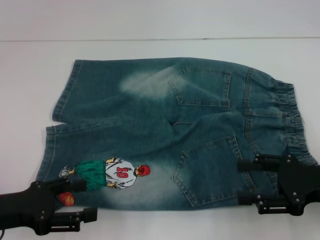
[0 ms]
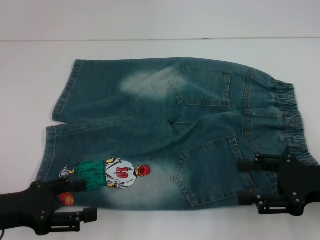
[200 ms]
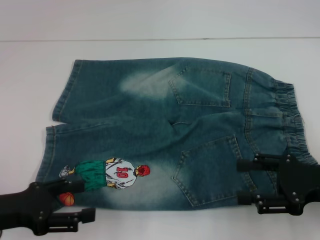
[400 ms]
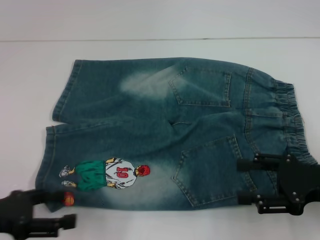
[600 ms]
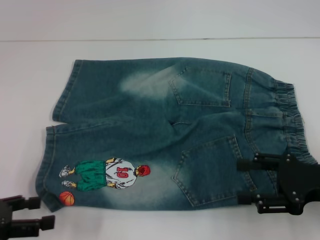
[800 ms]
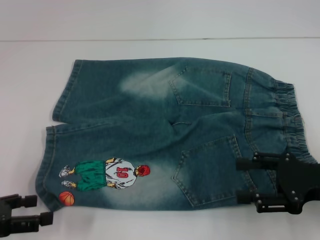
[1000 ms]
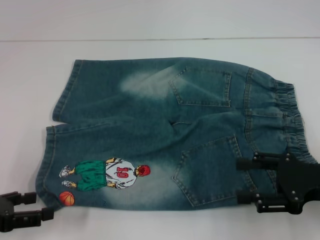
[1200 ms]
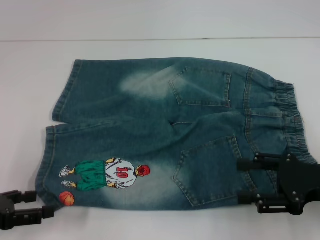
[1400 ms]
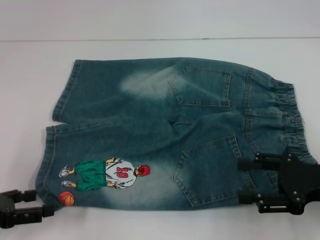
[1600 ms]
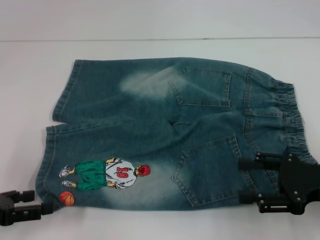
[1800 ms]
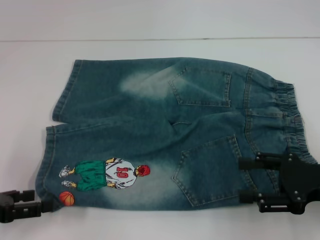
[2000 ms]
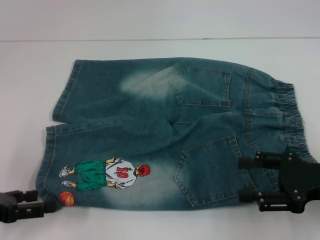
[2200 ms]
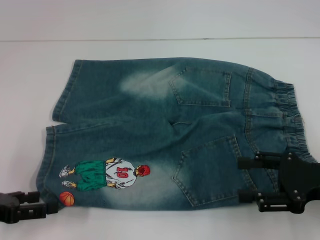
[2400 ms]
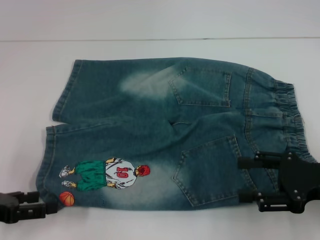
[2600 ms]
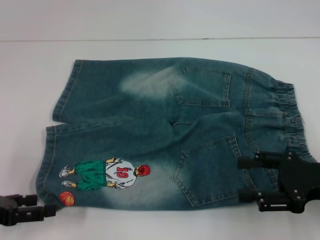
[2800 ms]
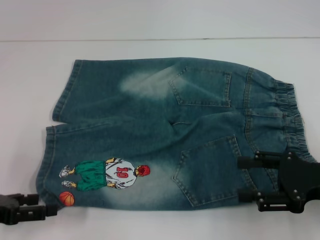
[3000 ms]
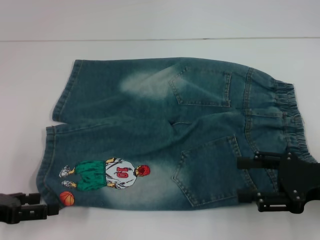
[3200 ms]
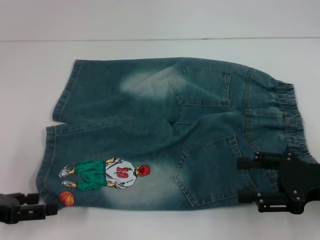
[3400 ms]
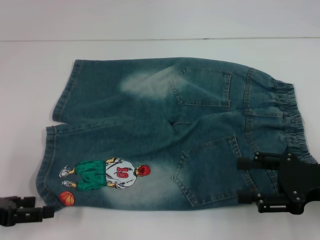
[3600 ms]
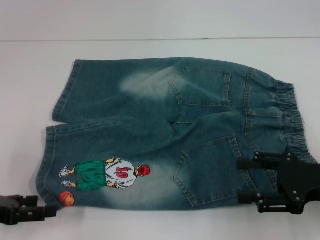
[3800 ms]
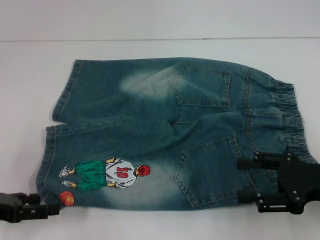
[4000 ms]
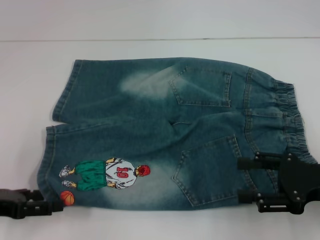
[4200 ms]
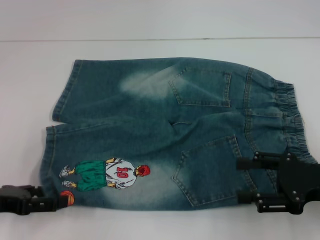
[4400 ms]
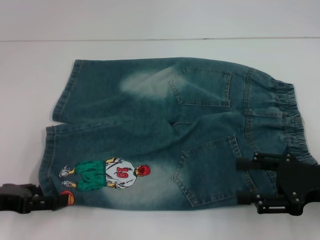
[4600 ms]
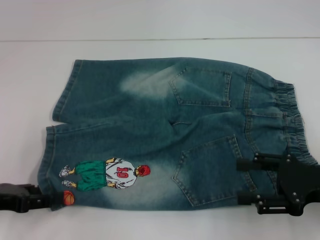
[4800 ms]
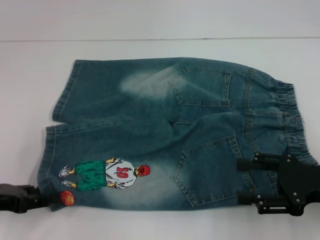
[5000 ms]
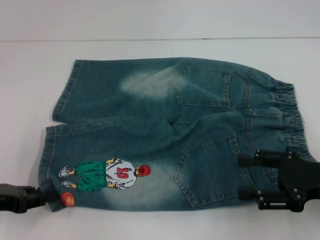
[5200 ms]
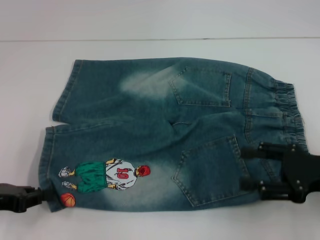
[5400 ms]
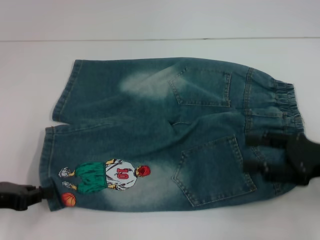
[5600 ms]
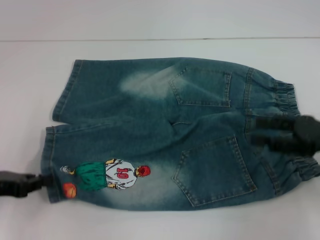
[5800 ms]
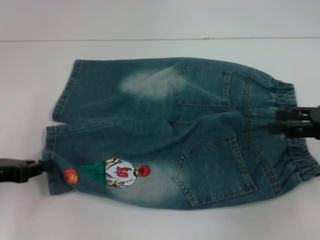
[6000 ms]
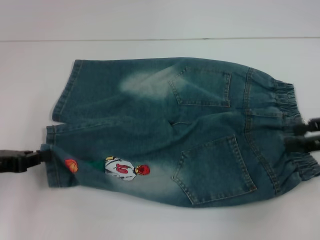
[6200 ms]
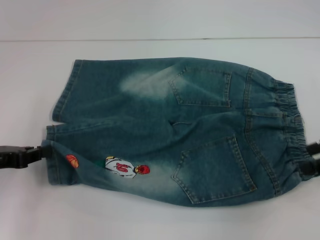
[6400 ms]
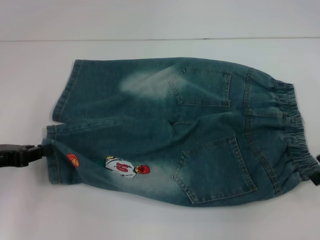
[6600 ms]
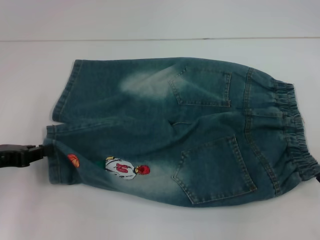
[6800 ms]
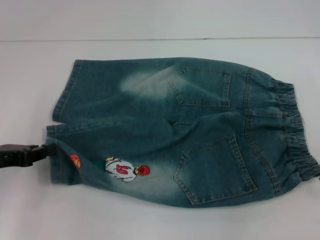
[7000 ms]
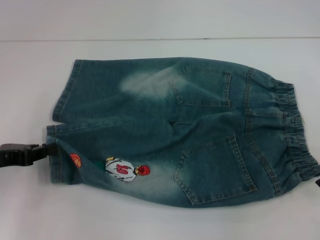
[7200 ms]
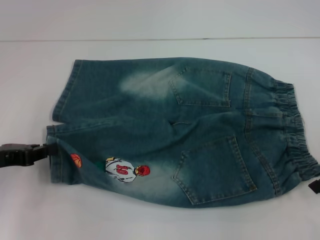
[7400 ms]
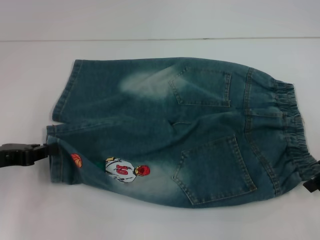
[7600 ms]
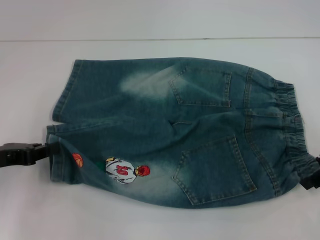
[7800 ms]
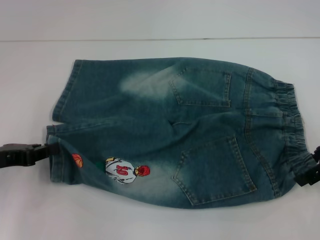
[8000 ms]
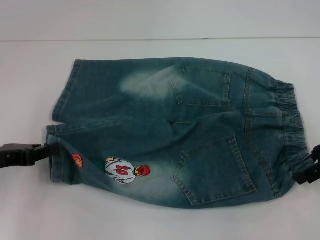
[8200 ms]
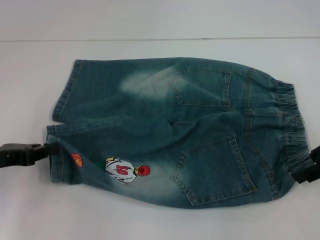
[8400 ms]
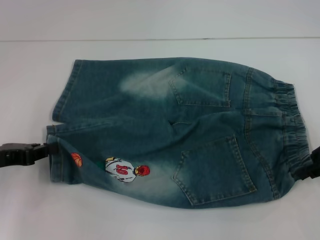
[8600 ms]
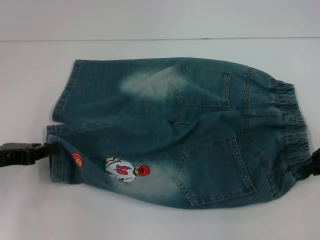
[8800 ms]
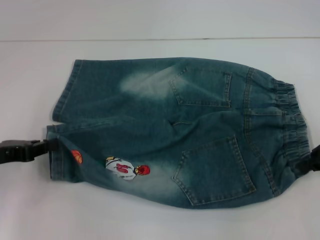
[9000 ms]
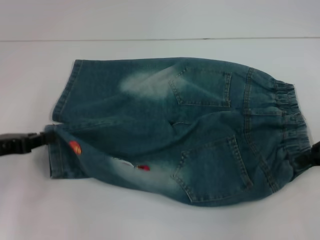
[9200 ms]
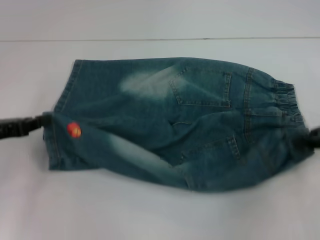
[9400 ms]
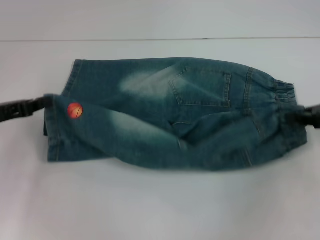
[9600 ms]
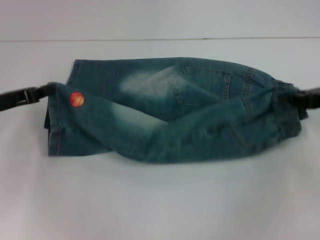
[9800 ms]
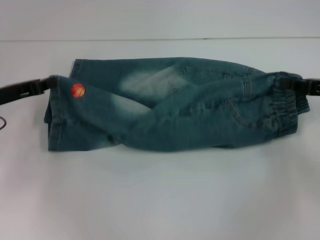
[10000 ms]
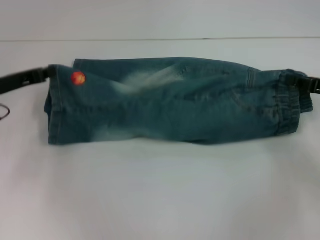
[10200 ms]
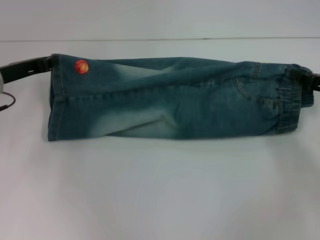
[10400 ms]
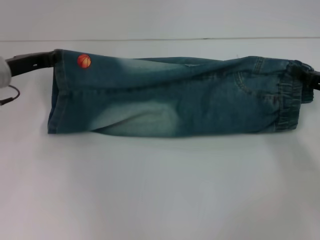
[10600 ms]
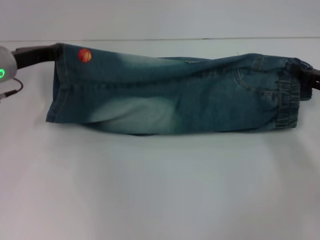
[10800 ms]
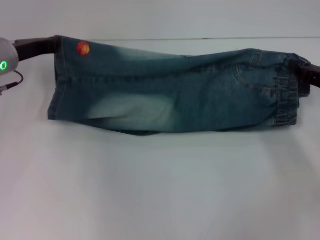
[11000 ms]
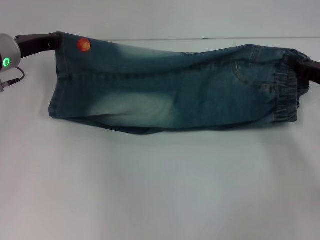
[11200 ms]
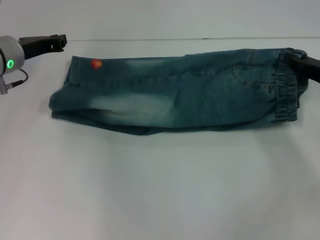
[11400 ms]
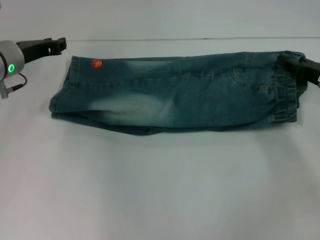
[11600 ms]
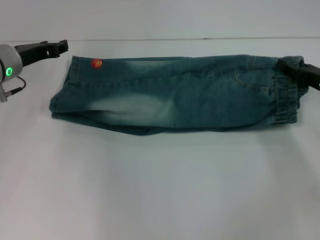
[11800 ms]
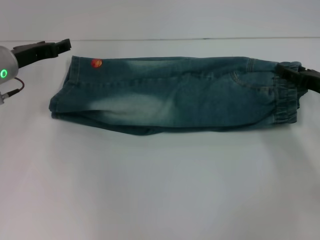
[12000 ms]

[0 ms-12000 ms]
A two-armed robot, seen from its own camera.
Step, 0 ms to 5400 ms: Grab the lower left pant leg with your left hand.
Step, 5600 ms to 8600 ms: Hold the lower right waistband with your right hand.
Step, 8800 ms to 11200 ms: Fold upward with your left hand.
1600 ms to 4400 ms: There are only small adjustments of the grippers.
4400 ms to 6000 ms: The left gripper closes its fingers. The right gripper goes some 5 cm forward.
7600 ms to 9000 ms: The right gripper closes up.
9000 ms to 10400 ms: The left gripper shifts approximately 10 cm forward. Meanwhile the right gripper moves downward, approximately 5 cm.
10400 ms to 12000 ms: The left gripper opens. Meanwhile the right gripper opens up.

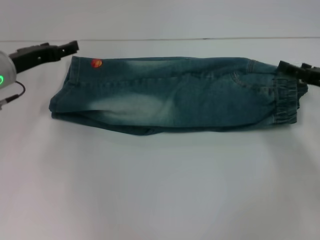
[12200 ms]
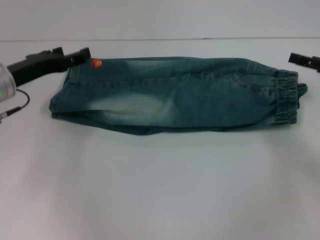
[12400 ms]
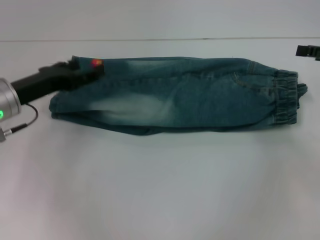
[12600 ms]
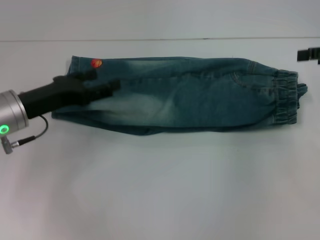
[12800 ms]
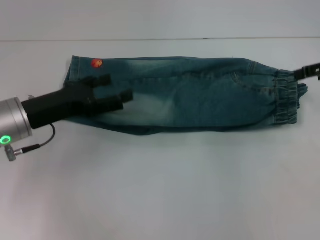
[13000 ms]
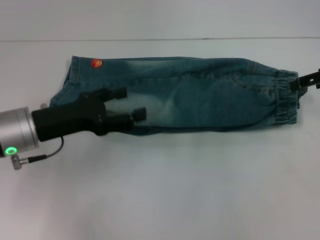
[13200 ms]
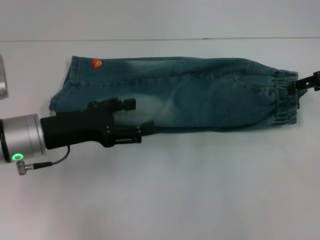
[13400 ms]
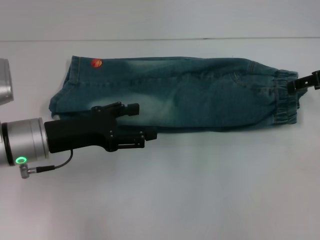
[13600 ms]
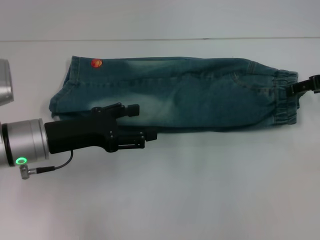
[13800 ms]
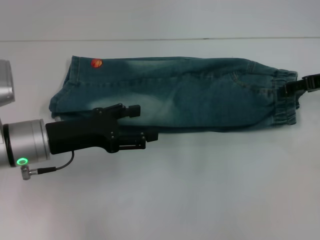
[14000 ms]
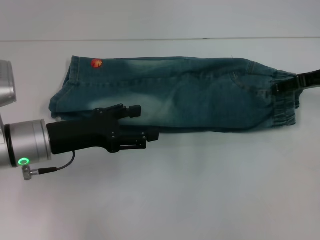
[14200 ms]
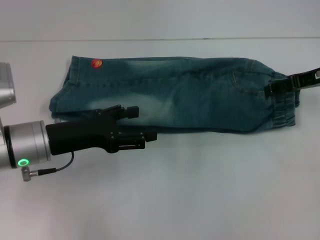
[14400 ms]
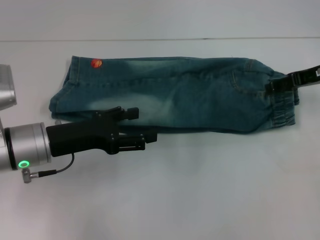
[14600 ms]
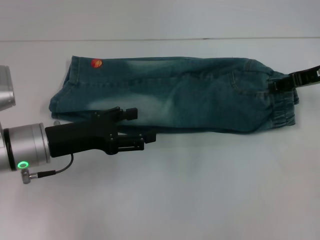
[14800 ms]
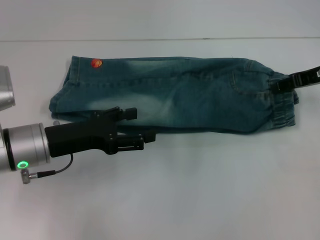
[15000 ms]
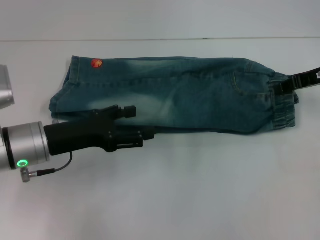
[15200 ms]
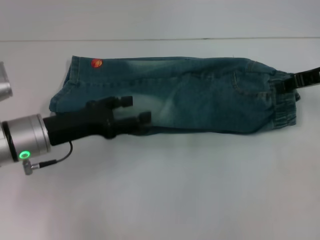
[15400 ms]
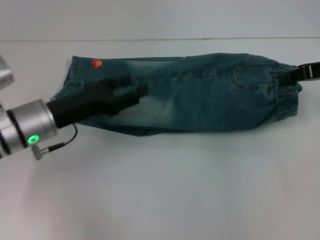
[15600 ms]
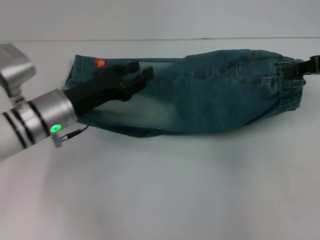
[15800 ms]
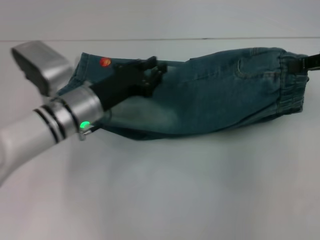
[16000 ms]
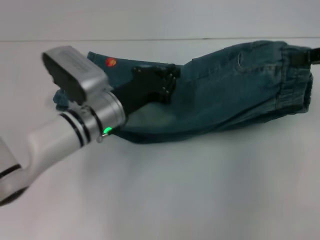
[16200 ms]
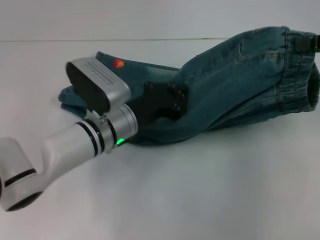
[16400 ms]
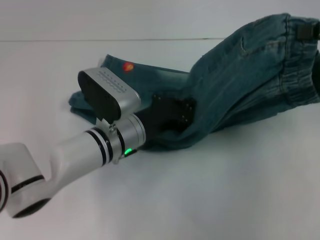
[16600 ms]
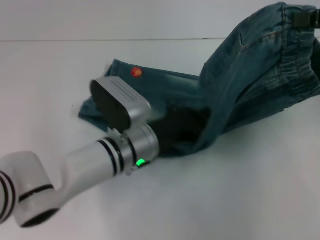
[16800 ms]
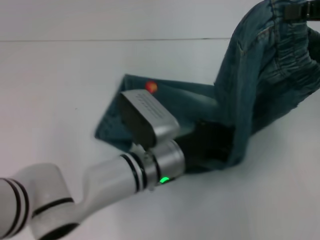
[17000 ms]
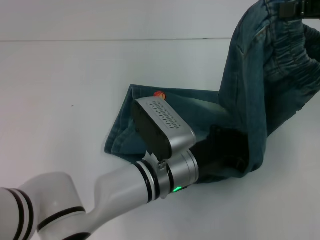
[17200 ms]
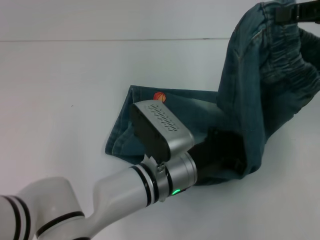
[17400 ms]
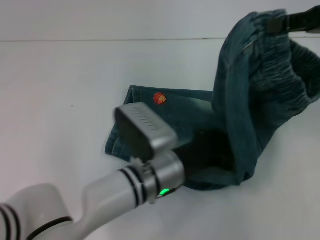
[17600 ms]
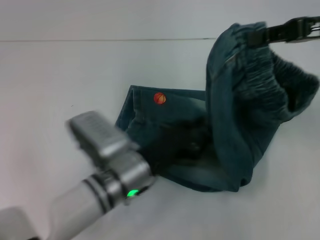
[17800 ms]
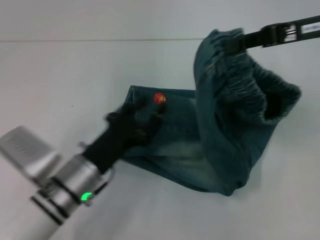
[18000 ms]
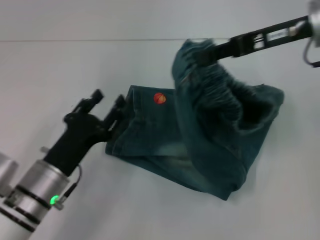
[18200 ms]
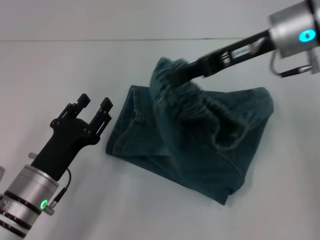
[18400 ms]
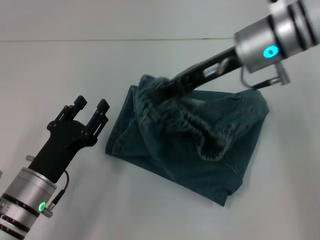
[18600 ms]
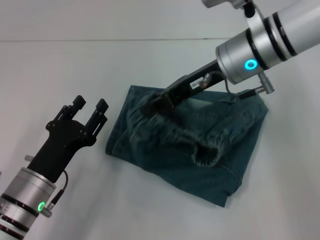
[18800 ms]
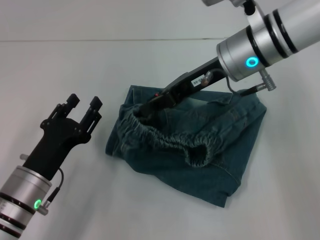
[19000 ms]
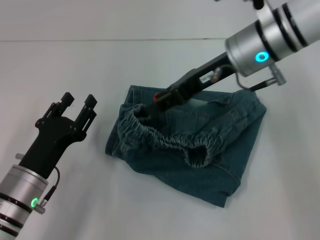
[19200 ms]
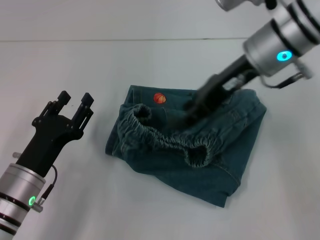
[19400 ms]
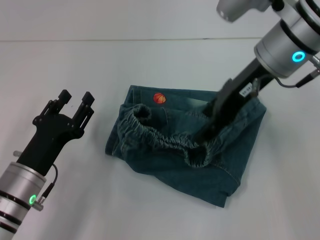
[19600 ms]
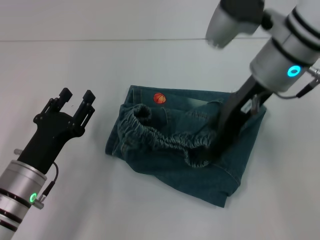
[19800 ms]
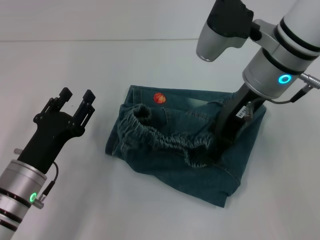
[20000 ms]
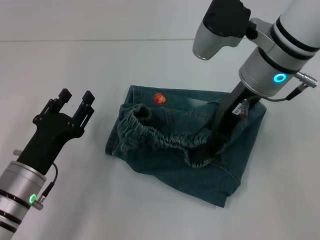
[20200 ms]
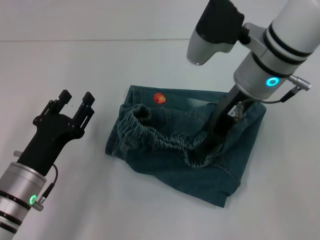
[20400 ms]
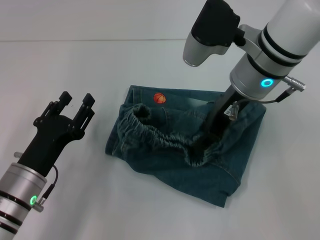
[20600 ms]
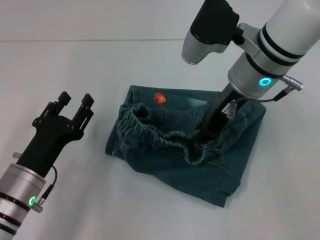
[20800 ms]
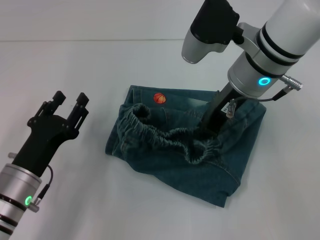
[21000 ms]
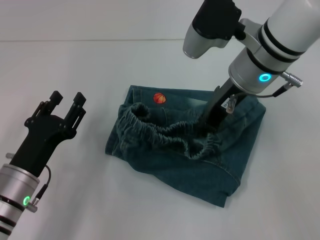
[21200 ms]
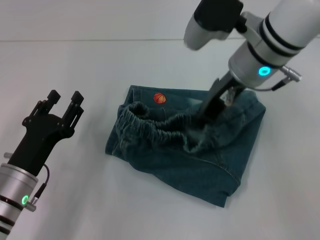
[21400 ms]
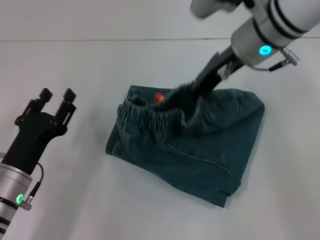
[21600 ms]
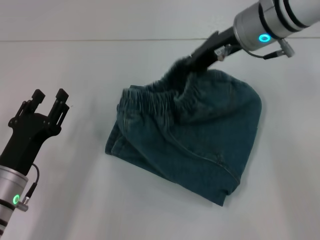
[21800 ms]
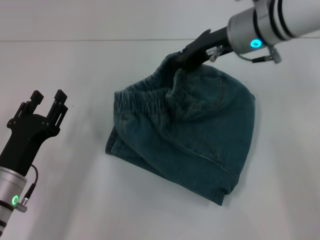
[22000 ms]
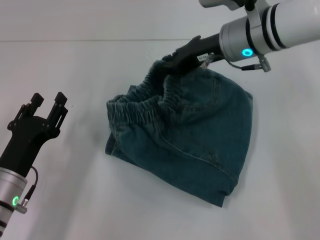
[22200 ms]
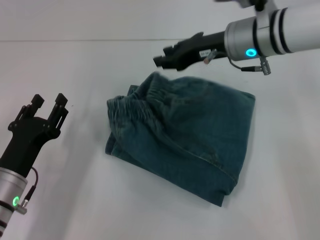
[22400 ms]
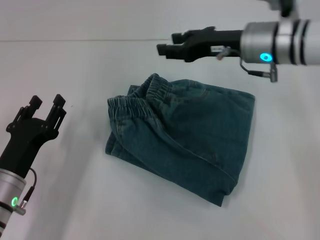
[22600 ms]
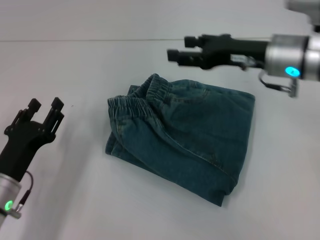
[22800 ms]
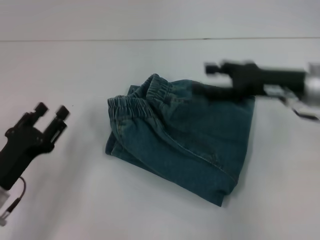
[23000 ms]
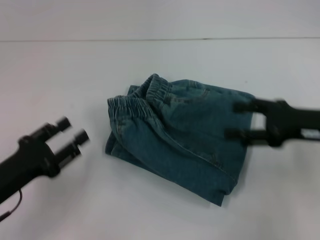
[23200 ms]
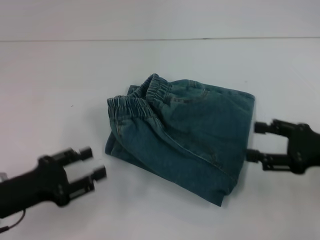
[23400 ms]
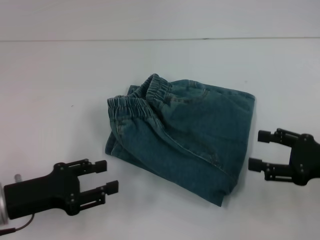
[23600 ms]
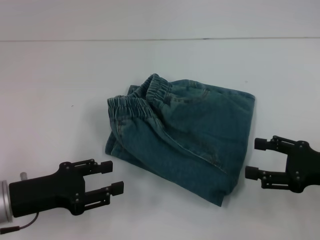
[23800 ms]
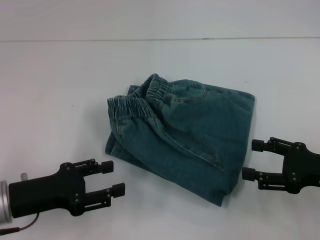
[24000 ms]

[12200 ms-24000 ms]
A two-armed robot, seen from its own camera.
Step, 12400 ms to 14600 ms: Grab the waistband with your right hand.
Step, 14800 ms to 17600 ms: Press the middle of the pants with your left hand.
Step, 18000 ms to 19400 ms: Fold to the left with your right hand.
Step, 19800 ms to 22600 ms: Adjust the pants with your right hand.
12200 ms to 13600 ms: The right gripper heads upward, covering about 10 cm; the left gripper heads backward and to the right, covering approximately 10 cm.
13600 ms to 15200 ms: The right gripper closes.
15200 ms to 16600 ms: The left gripper is displaced to the right by approximately 15 cm, and closes up. Meanwhile the right gripper shifts some 10 cm upward and backward, and closes.
16600 ms to 18200 ms: The left gripper moves to the left and backward, approximately 15 cm, and opens. Meanwhile the right gripper goes approximately 15 cm to the left.
18200 ms to 19600 ms: The right gripper moves to the left, some 5 cm, and opens its fingers.
19600 ms to 21000 ms: The right gripper closes up.
21000 ms to 22600 ms: The right gripper moves roughly 5 cm.
22600 ms to 24000 ms: The right gripper moves backward, to the right and downward, roughly 25 cm, and opens; the left gripper changes place by approximately 5 cm.
